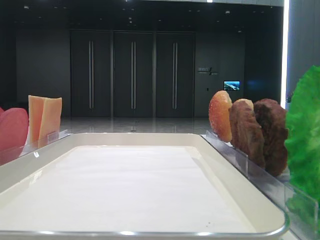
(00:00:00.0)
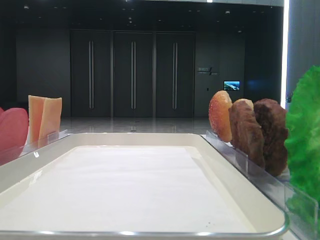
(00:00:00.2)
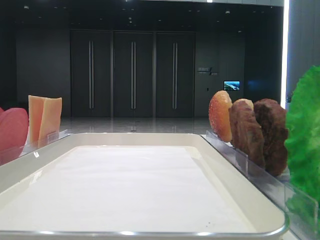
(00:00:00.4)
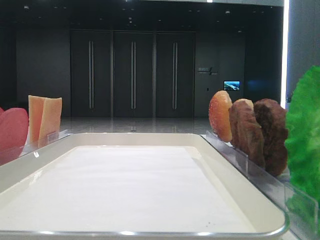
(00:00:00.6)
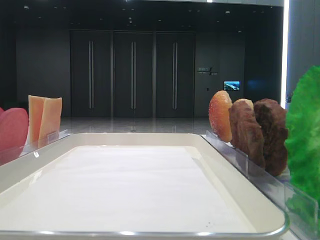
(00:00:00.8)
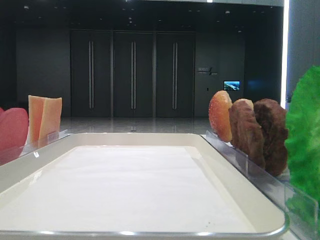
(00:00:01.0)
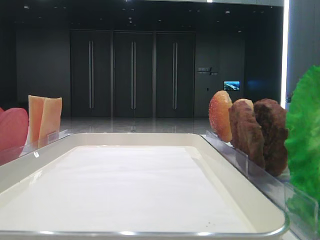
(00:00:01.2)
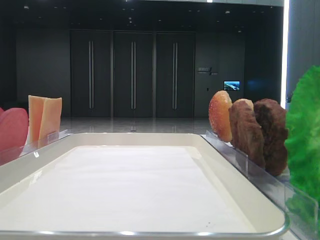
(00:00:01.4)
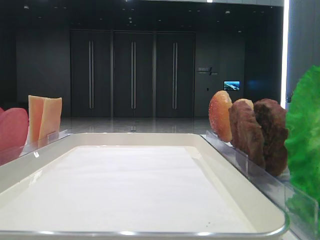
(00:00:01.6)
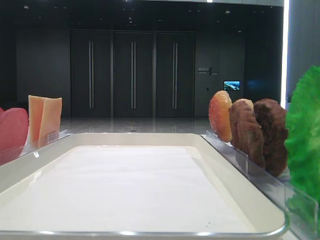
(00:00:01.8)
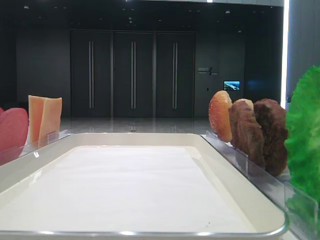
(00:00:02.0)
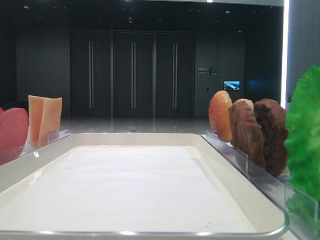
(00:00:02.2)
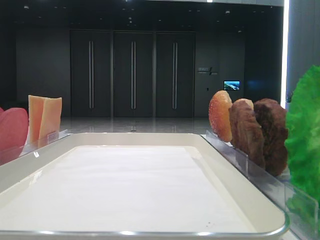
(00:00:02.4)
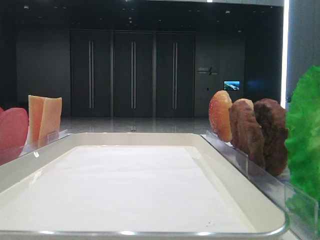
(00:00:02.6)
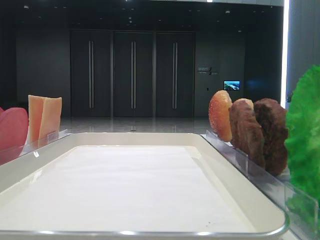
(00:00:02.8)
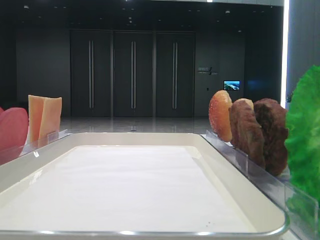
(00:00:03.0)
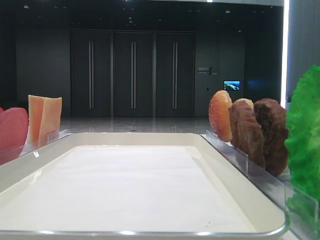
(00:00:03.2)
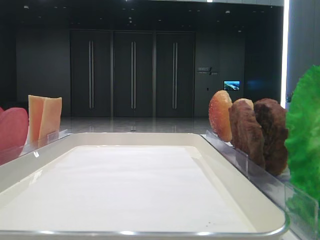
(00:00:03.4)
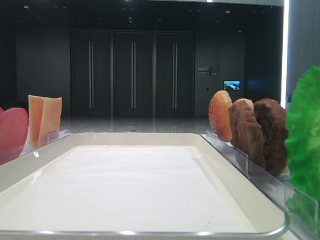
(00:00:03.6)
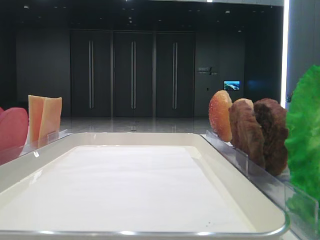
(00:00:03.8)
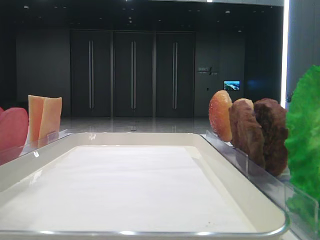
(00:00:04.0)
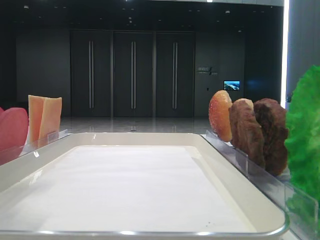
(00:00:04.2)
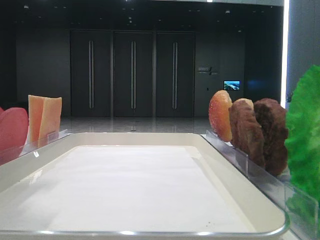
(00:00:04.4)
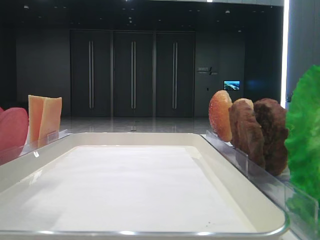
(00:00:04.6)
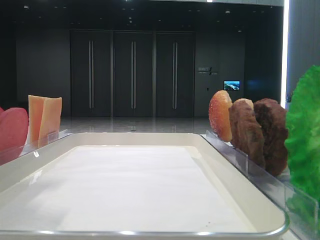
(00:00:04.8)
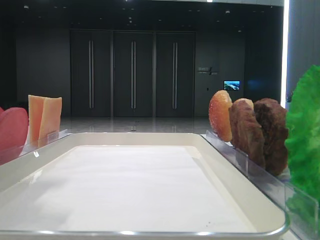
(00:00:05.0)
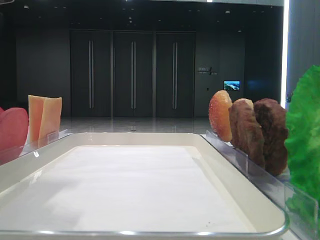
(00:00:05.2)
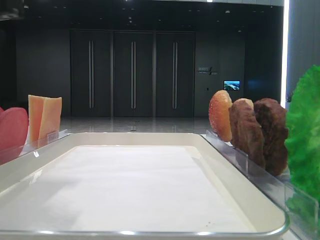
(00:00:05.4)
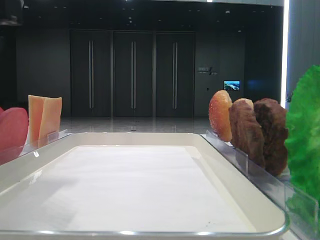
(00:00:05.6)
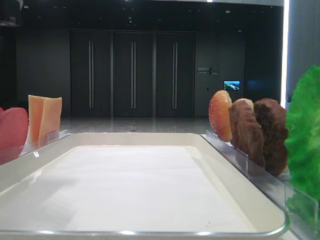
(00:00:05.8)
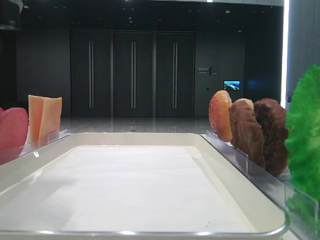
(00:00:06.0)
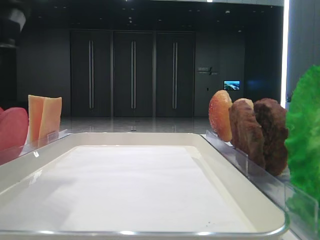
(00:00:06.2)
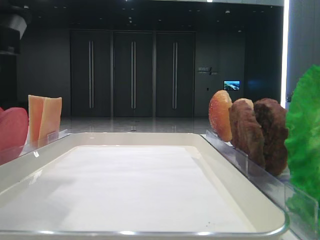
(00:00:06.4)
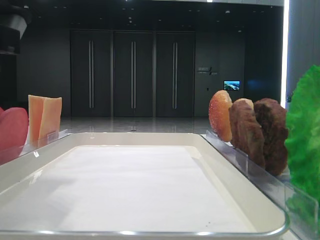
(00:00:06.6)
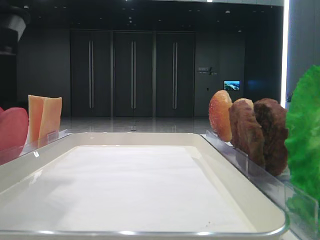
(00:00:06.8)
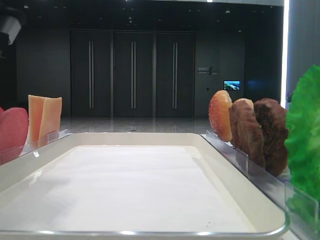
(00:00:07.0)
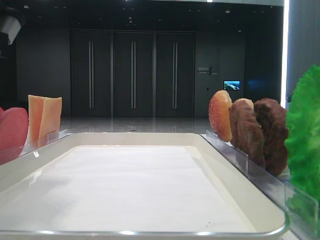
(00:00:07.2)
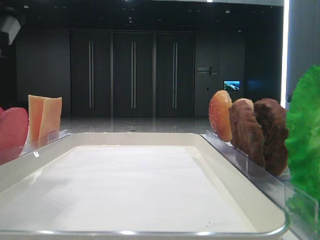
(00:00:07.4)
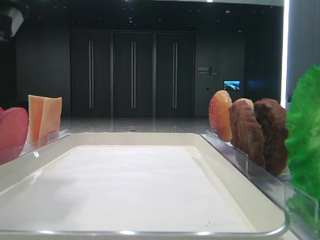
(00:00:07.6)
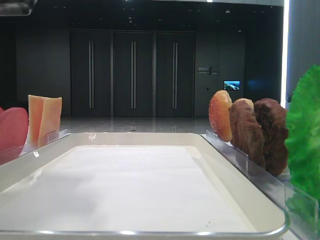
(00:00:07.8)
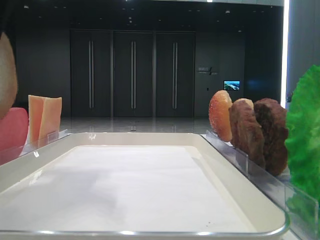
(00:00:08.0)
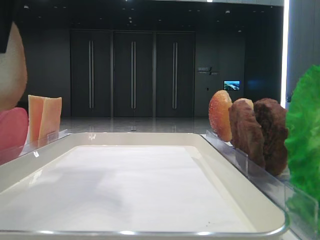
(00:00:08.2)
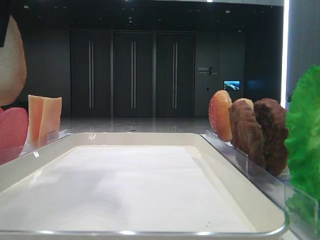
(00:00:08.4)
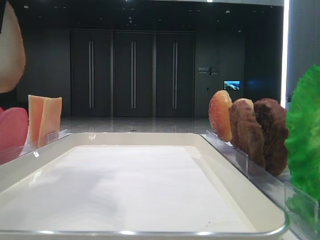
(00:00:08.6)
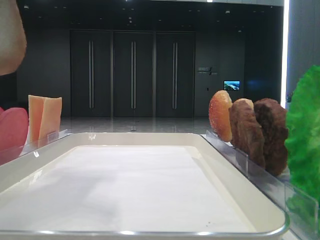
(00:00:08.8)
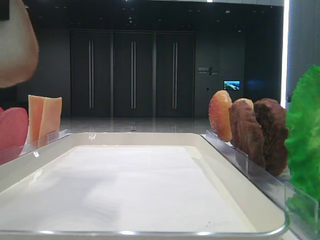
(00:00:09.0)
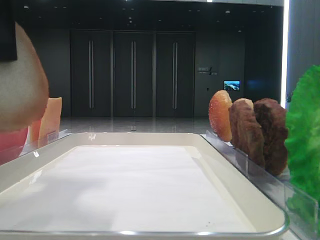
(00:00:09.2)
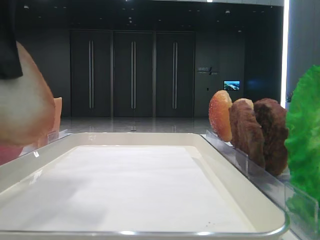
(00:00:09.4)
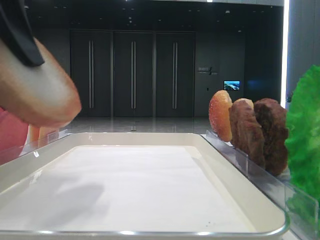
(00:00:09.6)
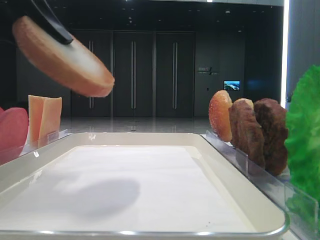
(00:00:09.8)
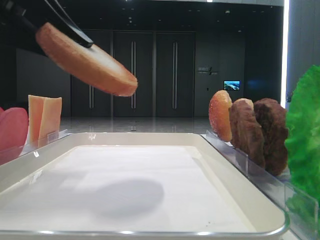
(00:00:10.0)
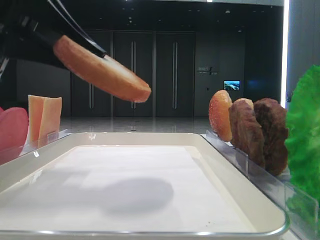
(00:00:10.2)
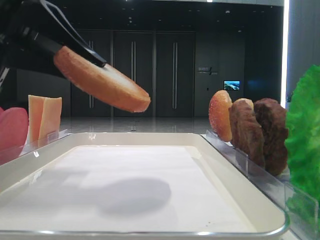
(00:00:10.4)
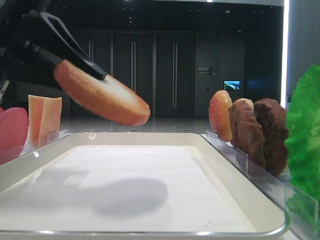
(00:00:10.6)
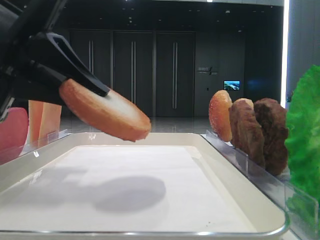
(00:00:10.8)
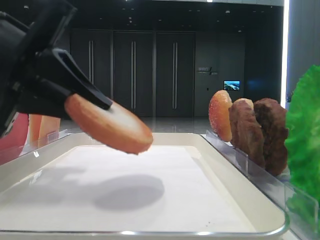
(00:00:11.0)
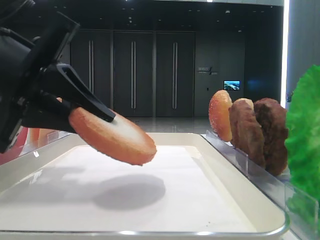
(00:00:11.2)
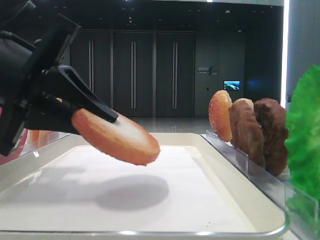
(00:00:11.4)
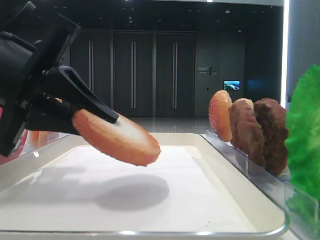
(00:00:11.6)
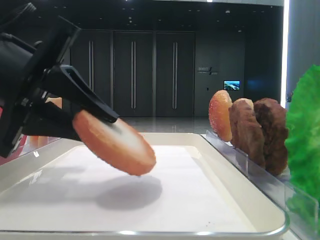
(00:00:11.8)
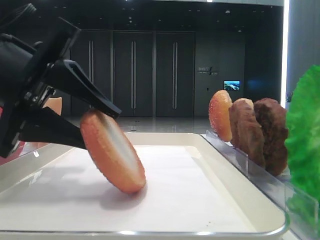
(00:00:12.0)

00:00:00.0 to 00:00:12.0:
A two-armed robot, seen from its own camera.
00:00:03.0 to 00:00:04.4: The left gripper moves to the right, approximately 10 cm.
00:00:04.4 to 00:00:06.0: The grippers move only a little.
00:00:07.6 to 00:00:09.0: The left gripper shifts some 10 cm upward.
00:00:09.0 to 00:00:10.4: The left gripper travels downward by approximately 10 cm.
00:00:10.4 to 00:00:12.0: The left gripper heads downward, covering approximately 5 cm, and opens.

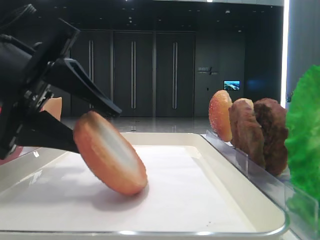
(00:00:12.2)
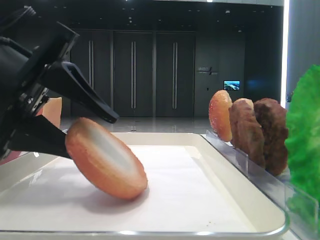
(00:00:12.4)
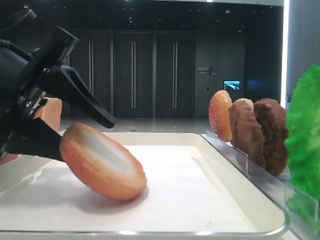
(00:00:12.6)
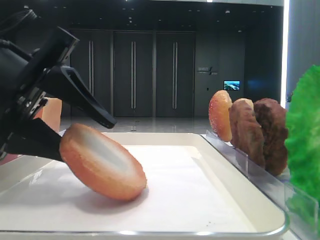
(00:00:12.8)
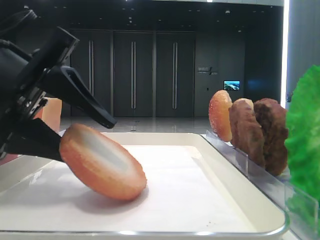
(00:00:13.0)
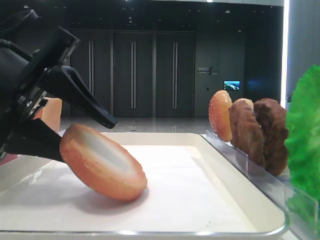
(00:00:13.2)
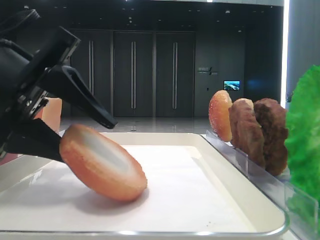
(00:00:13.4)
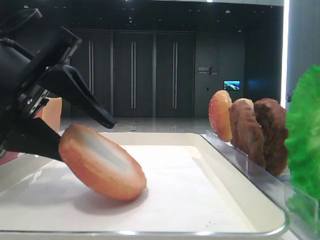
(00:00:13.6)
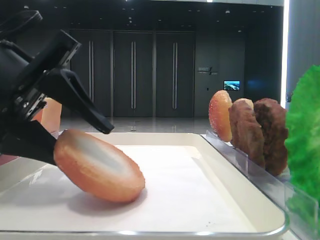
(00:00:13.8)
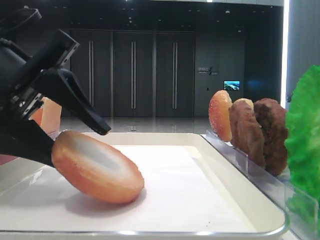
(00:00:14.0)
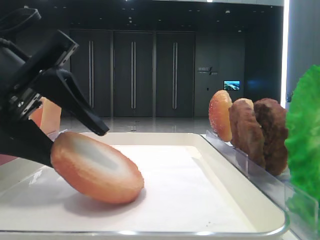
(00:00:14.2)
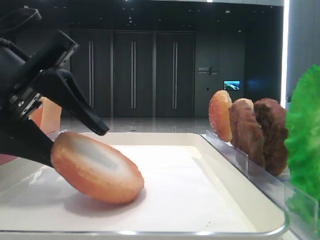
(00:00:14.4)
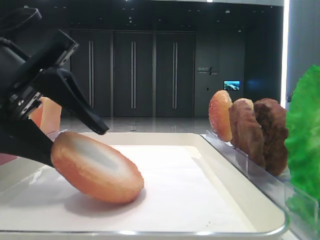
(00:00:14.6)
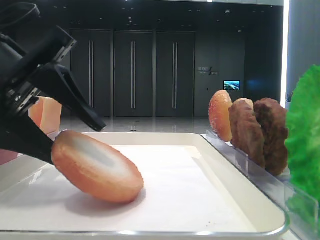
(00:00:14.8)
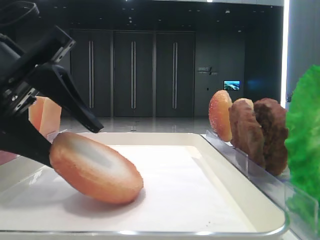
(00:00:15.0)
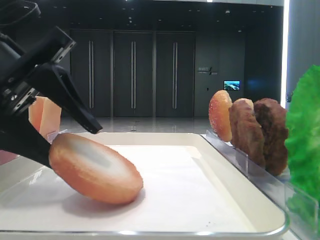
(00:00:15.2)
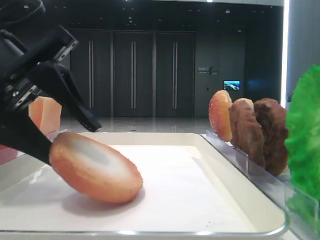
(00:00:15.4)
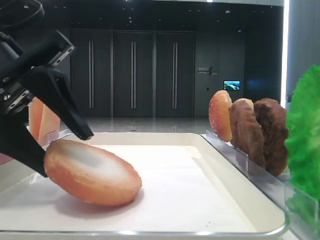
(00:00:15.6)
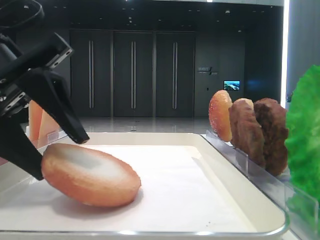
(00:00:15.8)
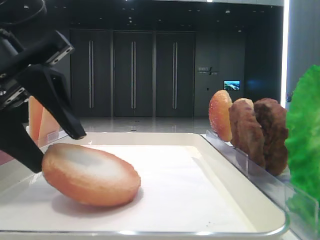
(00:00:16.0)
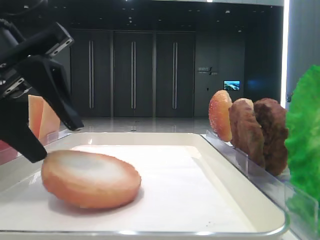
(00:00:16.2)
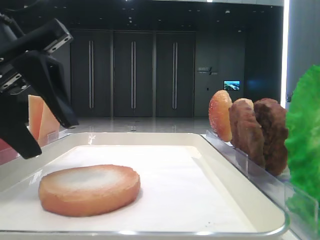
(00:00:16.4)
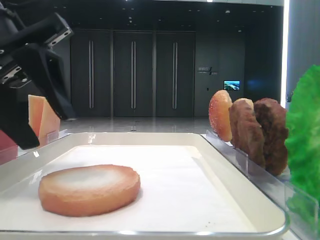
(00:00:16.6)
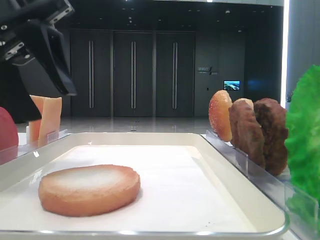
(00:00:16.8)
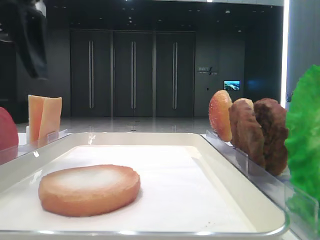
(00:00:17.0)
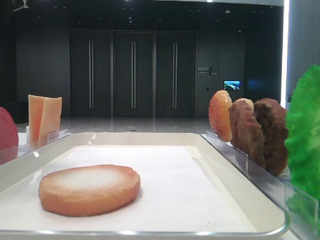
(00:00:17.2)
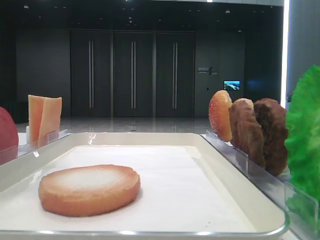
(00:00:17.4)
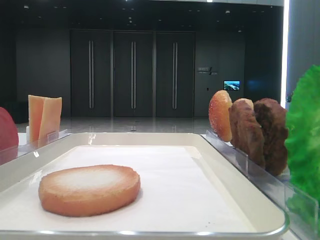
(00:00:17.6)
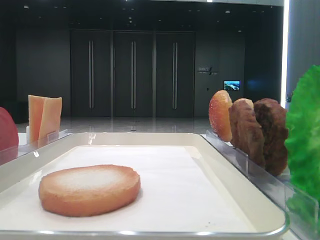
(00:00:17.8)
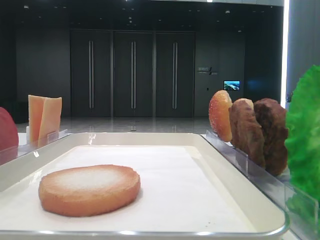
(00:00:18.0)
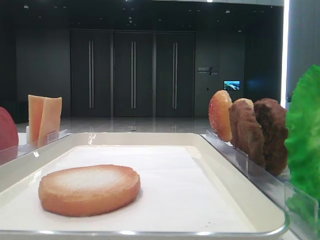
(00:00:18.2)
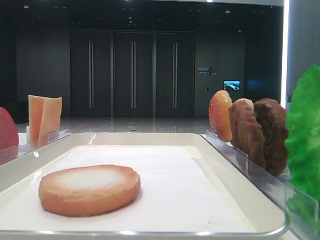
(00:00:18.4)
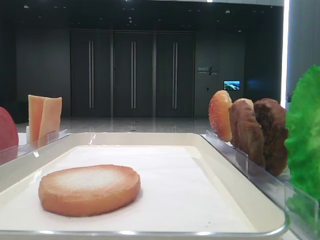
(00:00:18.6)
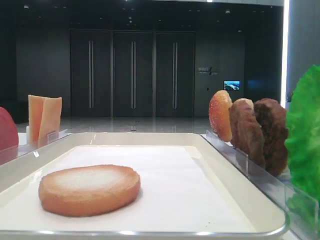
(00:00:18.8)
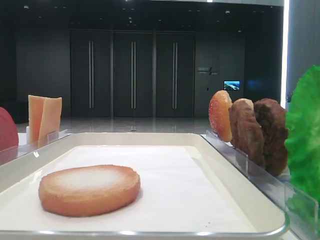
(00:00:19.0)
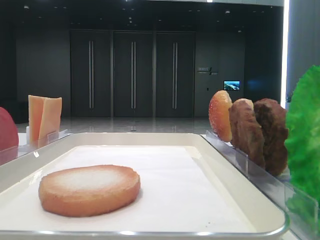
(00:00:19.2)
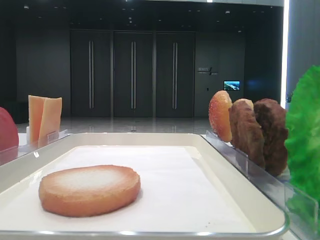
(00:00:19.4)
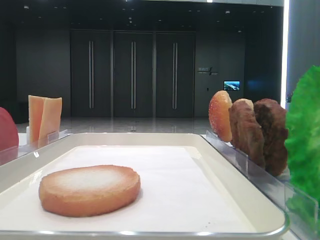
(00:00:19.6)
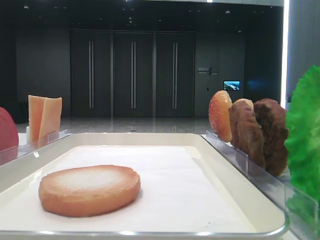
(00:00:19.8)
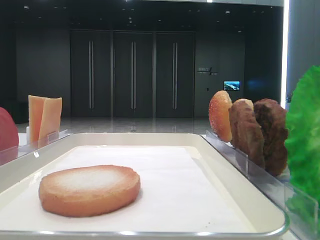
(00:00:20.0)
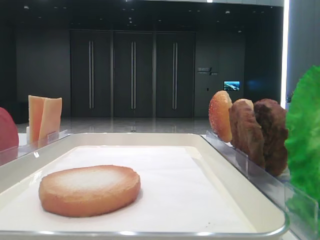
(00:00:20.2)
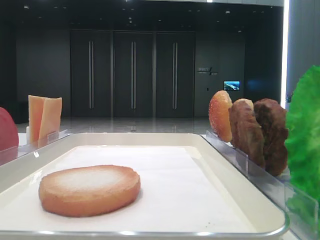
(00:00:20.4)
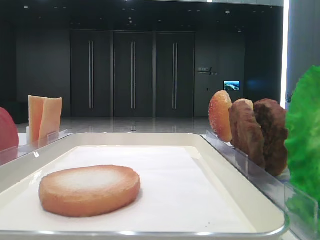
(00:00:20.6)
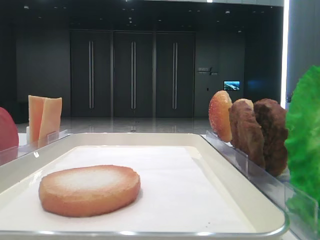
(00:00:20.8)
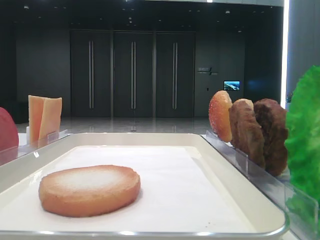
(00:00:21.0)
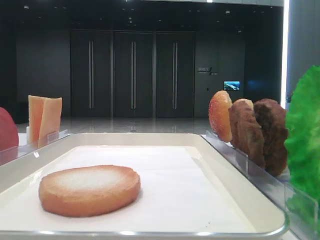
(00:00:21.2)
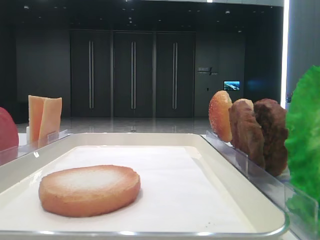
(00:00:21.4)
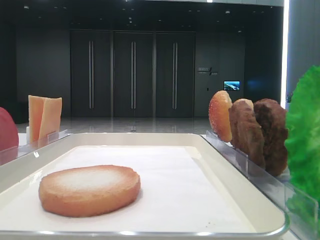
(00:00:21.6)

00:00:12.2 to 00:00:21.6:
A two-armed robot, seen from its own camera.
Step, 00:00:12.2 to 00:00:16.2: Place the bread on the tray with the left hand.
00:00:12.2 to 00:00:15.4: There are only small adjustments of the grippers.
00:00:15.4 to 00:00:17.0: The left gripper travels upward by some 10 cm.
00:00:17.0 to 00:00:18.4: The left gripper shifts approximately 15 cm to the left and upward.
00:00:20.0 to 00:00:21.6: The two grippers keep their place.
